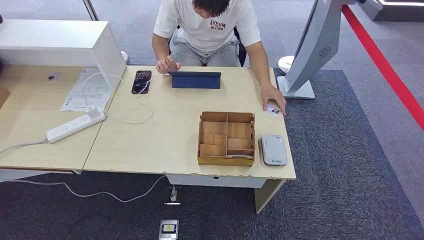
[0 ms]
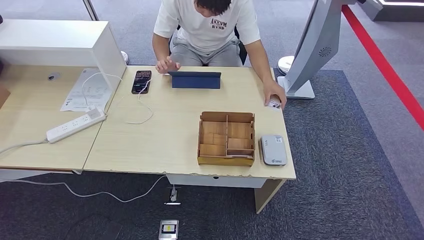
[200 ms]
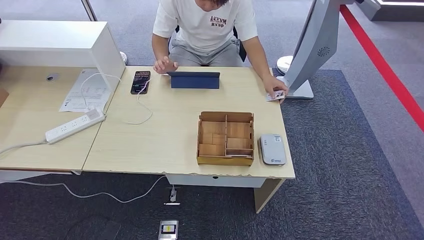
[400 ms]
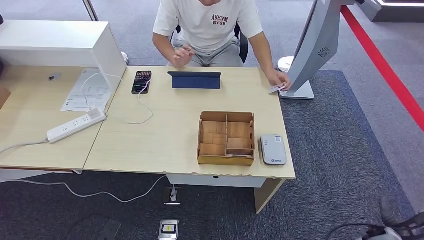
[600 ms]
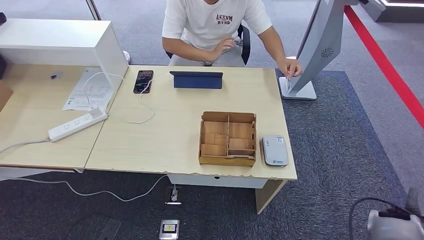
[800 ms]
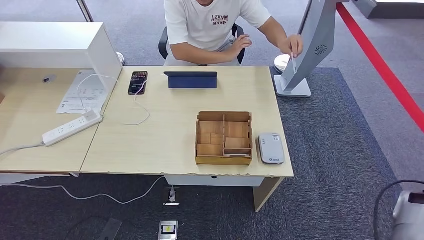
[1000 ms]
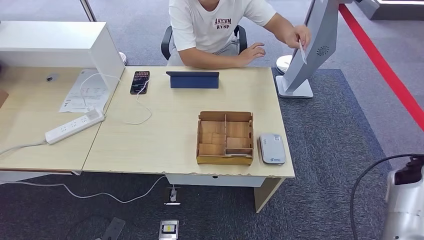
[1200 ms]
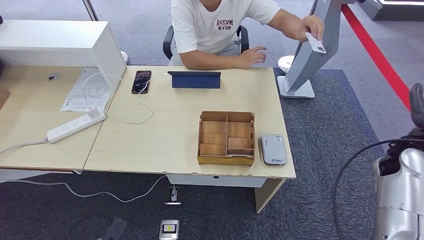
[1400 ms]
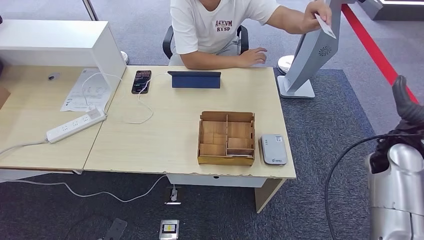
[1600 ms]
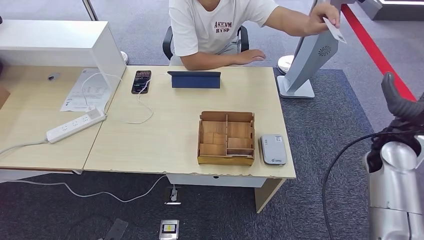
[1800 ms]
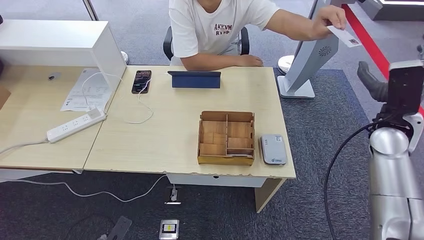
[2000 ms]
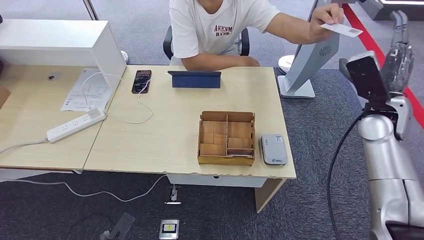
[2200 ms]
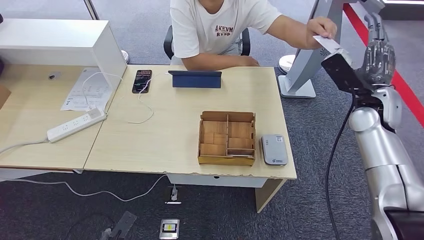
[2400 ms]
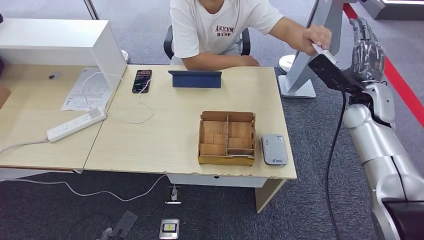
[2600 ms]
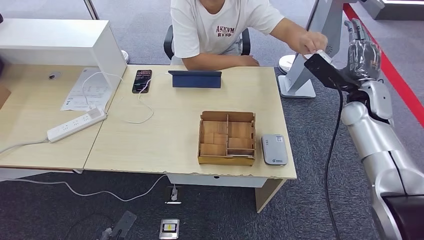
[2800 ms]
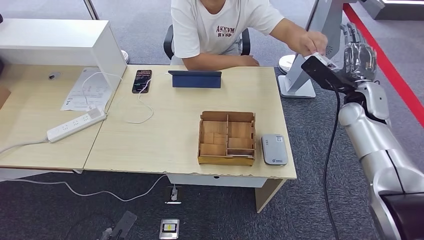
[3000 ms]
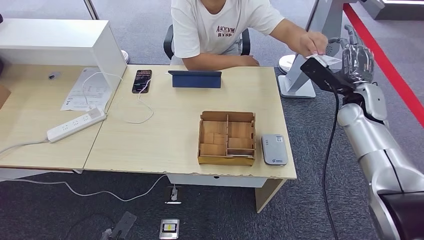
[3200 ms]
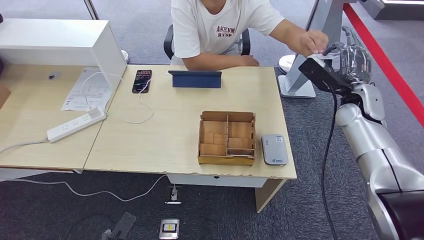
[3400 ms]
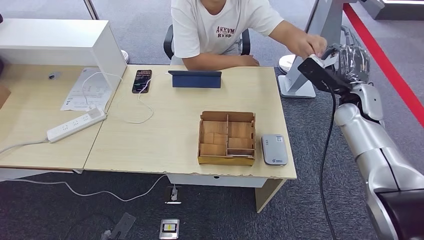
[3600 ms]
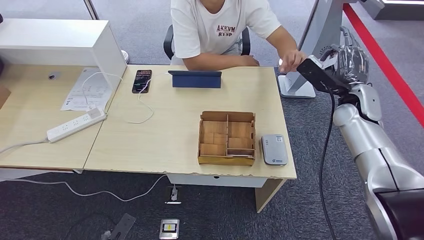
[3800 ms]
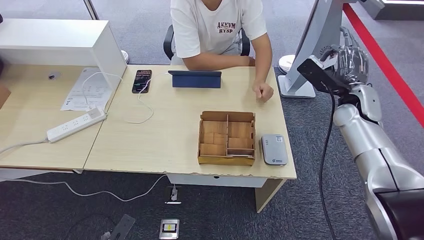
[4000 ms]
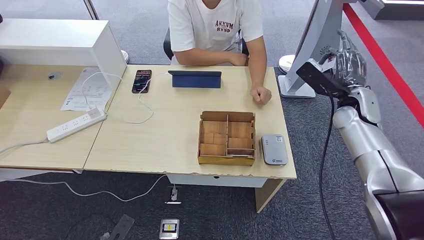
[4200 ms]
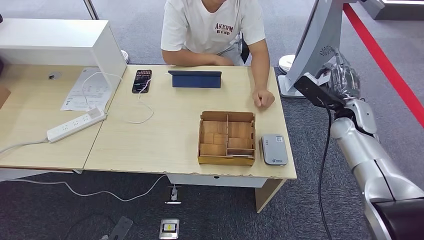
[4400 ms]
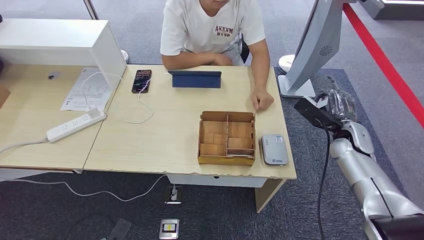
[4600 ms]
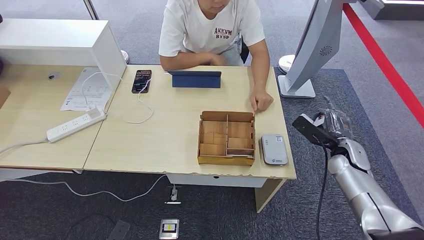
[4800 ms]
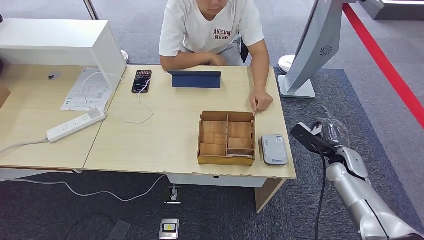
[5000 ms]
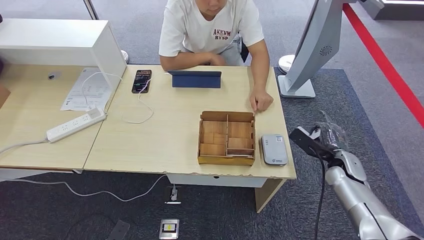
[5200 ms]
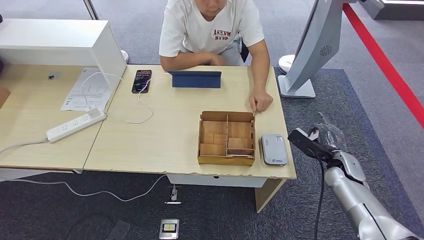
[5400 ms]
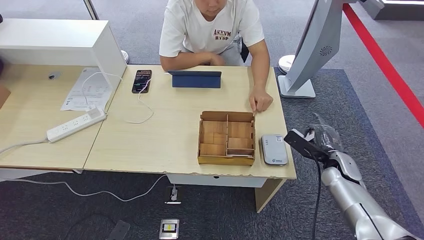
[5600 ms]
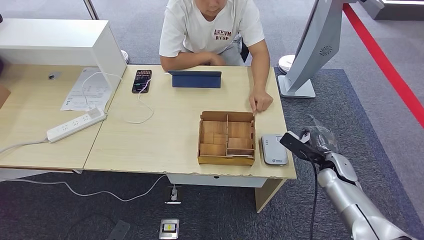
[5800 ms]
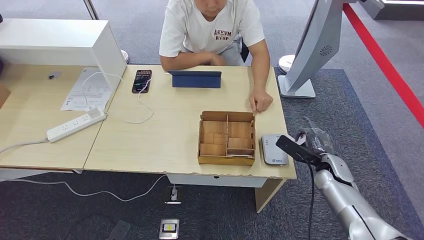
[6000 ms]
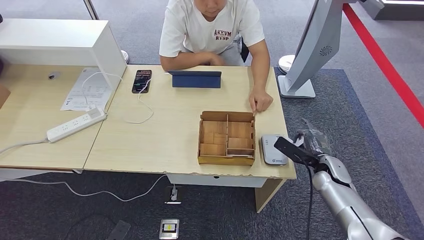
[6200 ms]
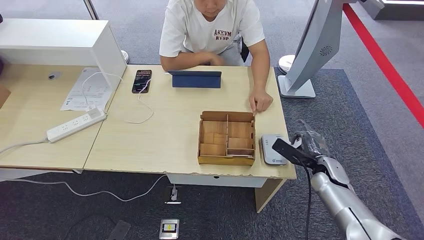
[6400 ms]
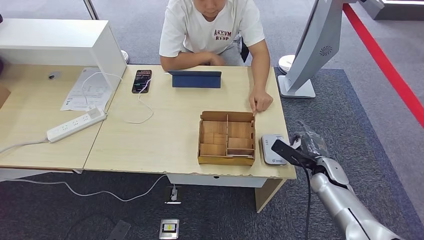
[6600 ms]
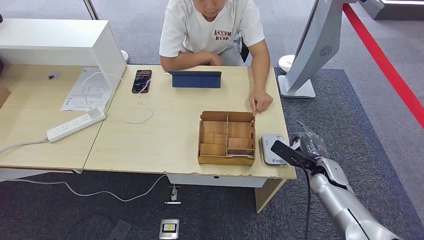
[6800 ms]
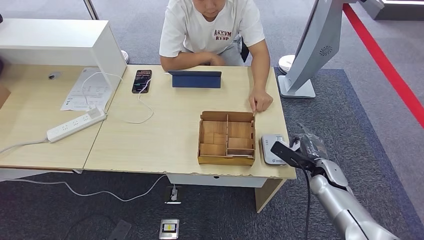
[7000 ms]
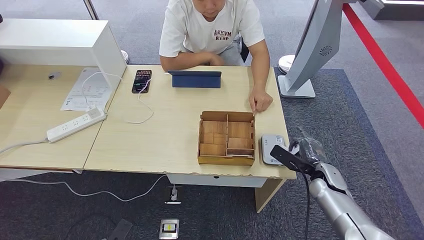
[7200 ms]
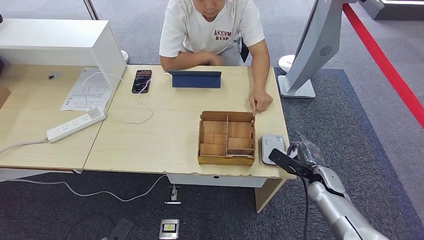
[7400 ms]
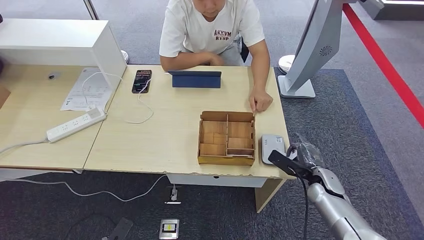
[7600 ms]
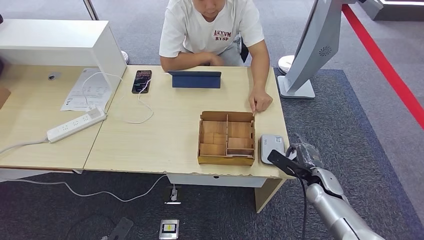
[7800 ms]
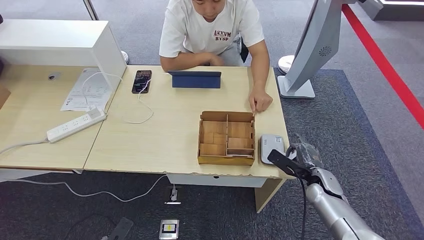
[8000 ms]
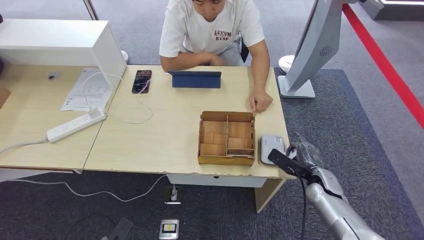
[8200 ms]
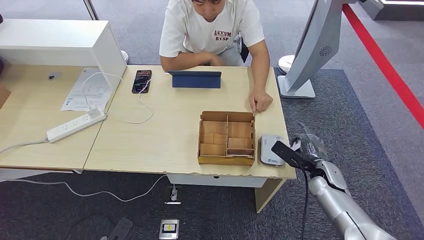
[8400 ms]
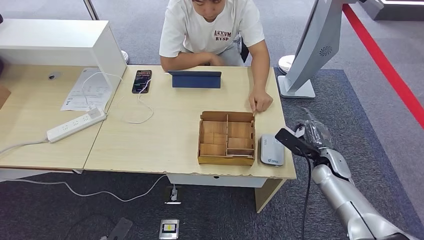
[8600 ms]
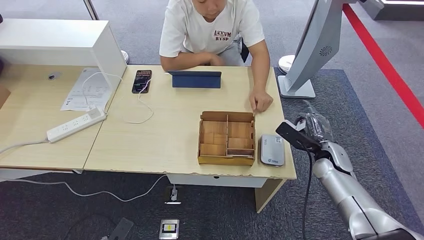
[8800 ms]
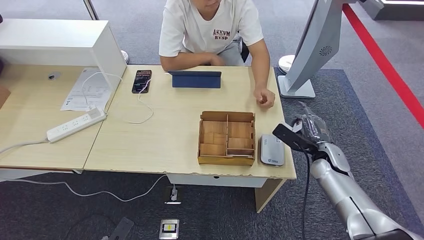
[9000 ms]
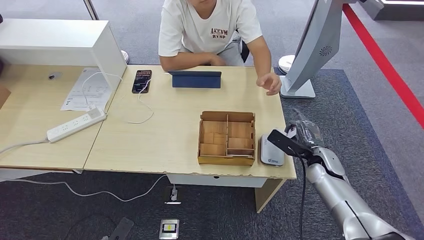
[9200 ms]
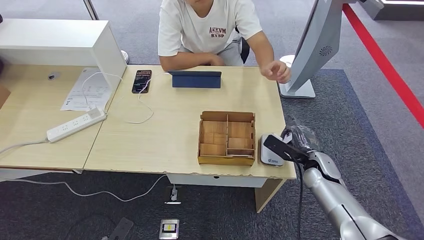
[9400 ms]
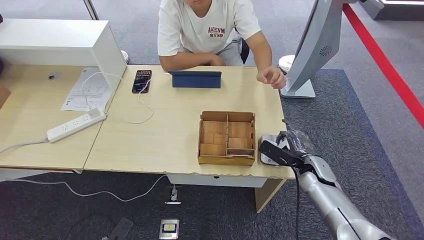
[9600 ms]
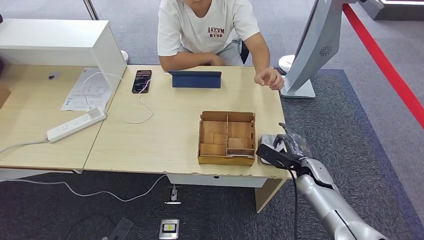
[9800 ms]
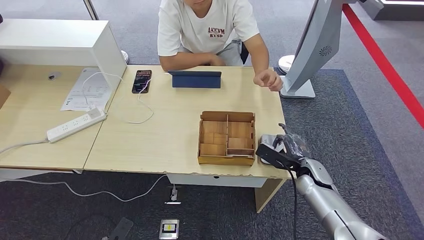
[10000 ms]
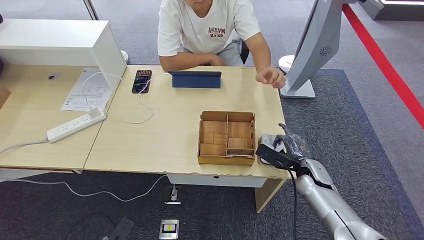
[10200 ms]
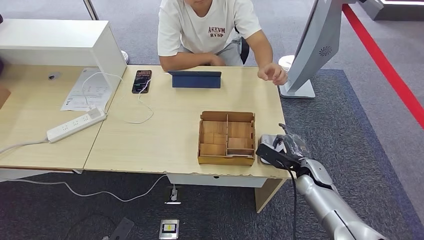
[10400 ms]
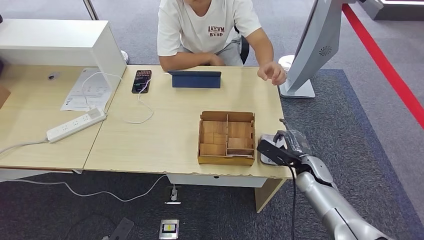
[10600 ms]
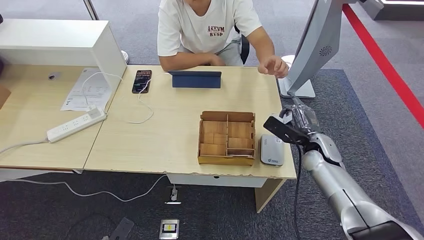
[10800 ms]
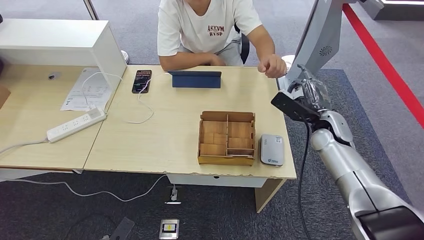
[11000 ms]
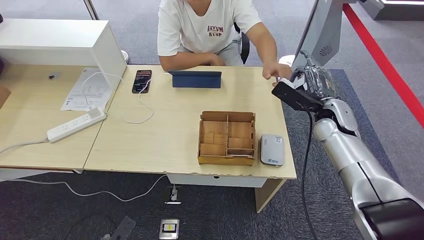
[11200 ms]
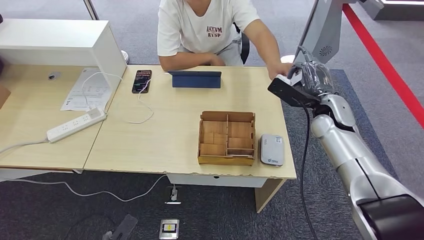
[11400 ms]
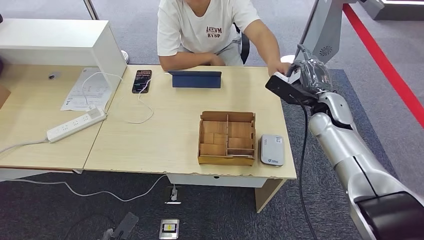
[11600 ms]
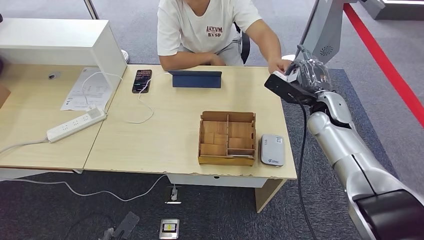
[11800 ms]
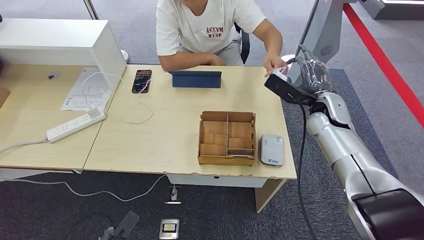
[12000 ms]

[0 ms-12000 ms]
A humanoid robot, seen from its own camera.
Step, 0 ms to 4000 ms: Take the ID card from the person's hand.
Step, 4800 ms to 7800 ms: Place the ID card on the card reader.
1600 ms to 3000 ms: The right hand is displaced forward by some 10 cm.
3000 ms to 4400 ms: The right hand moves about 5 cm.
4400 ms to 6000 ms: The right hand travels downward and backward by roughly 15 cm.
6000 ms to 7600 ms: The hands make only small movements.
7600 ms to 9000 ms: The right hand is displaced upward by some 5 cm.
9000 ms to 10400 ms: The right hand ends up roughly 5 cm from where it was.
10400 ms to 12000 ms: The right hand goes about 20 cm upward and forward.

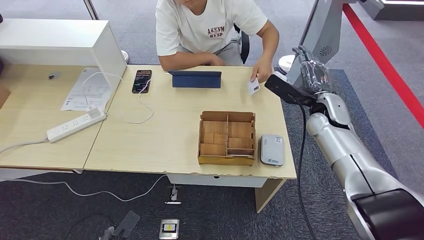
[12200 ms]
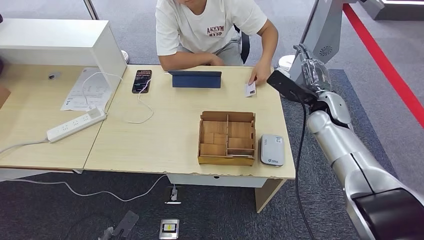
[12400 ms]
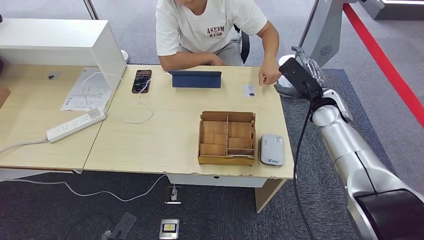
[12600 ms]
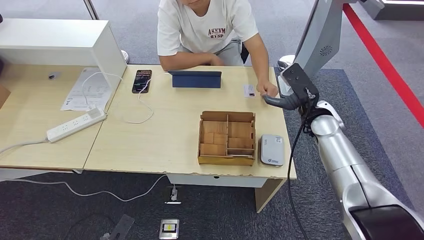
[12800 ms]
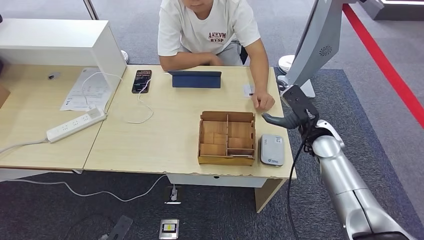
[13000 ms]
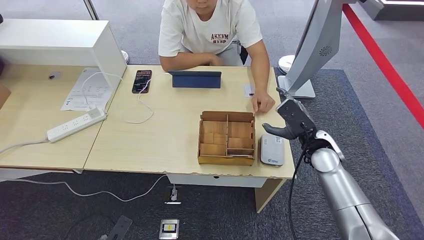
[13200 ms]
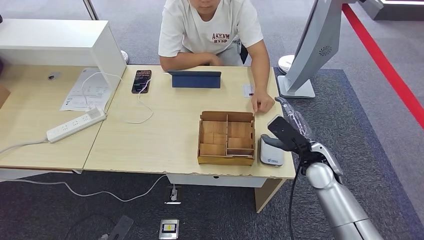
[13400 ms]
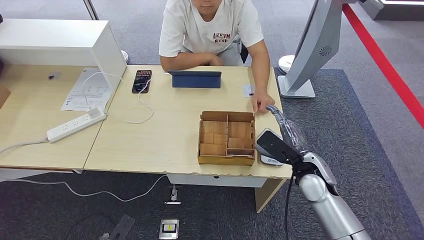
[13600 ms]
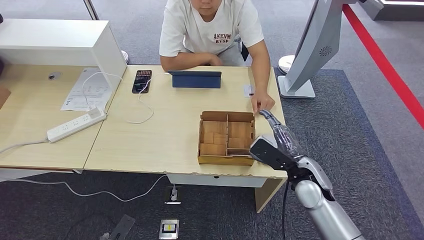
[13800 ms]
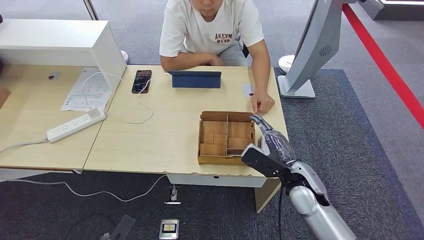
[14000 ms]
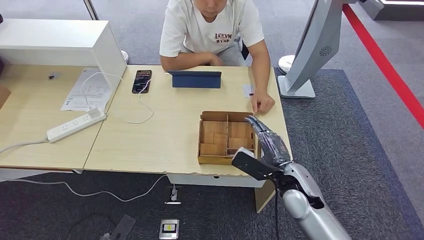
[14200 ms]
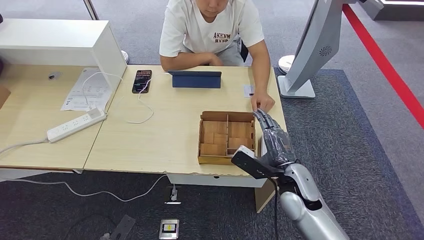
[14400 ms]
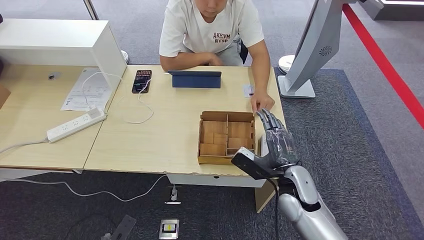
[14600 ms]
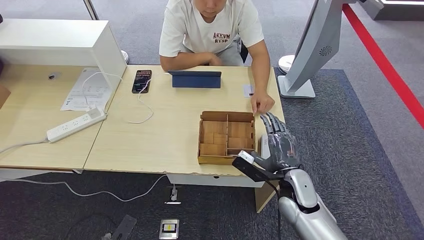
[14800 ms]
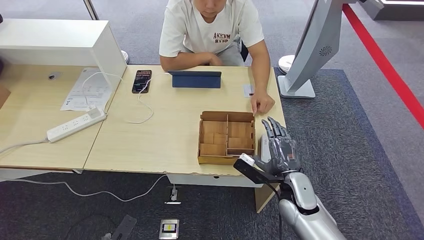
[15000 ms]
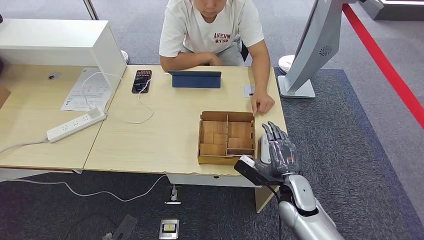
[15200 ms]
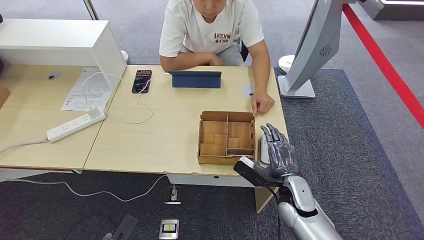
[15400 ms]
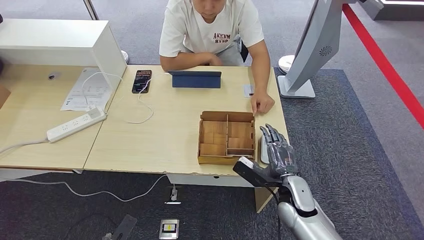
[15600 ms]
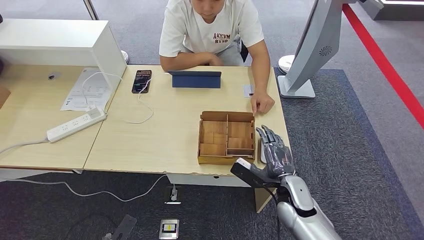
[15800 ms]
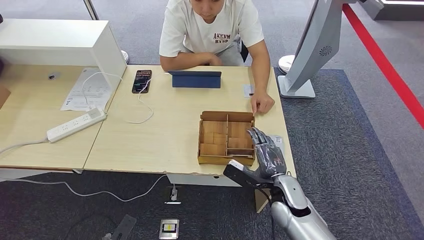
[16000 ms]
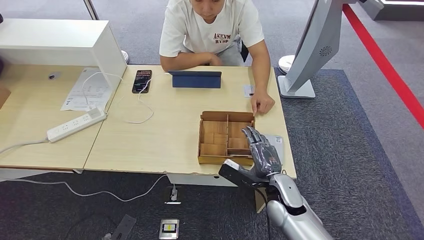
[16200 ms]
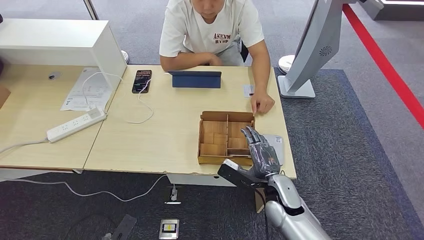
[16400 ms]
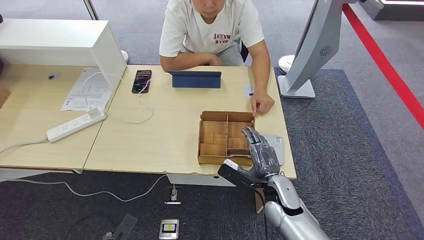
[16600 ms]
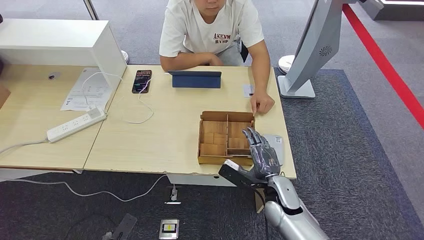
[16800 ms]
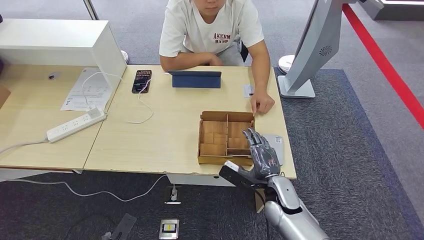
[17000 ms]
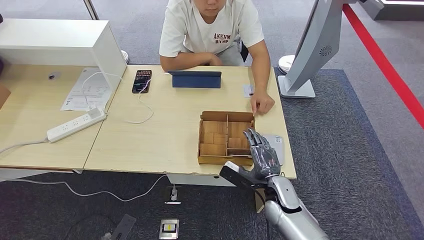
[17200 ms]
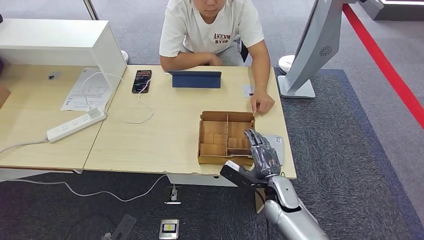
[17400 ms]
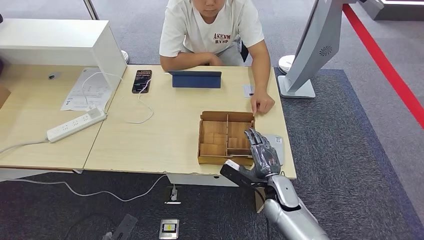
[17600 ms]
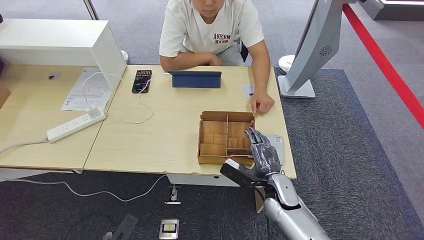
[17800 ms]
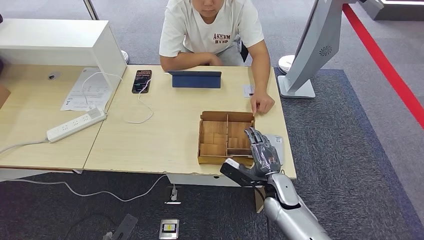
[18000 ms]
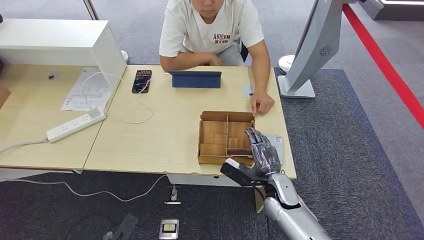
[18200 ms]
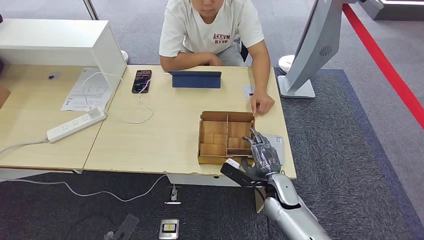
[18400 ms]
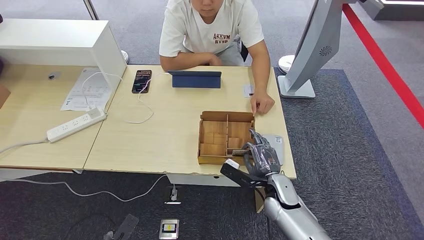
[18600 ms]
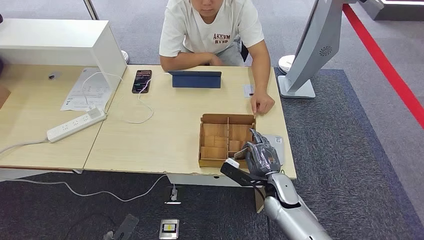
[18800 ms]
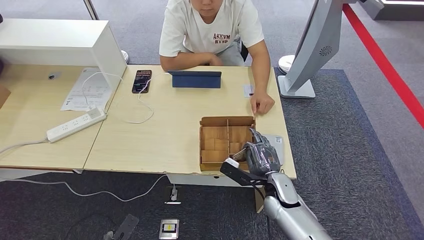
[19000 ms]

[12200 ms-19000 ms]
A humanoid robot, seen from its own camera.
12200 ms to 13600 ms: The right hand shifts some 15 cm backward and downward.
13600 ms to 15000 ms: The right hand heads downward, covering some 5 cm.
15000 ms to 17600 ms: The hands move only a little.
17600 ms to 19000 ms: The two hands keep their place.
